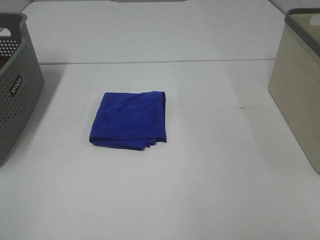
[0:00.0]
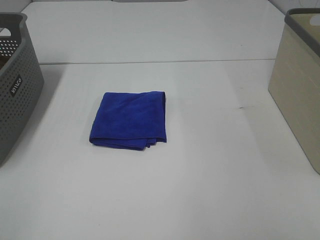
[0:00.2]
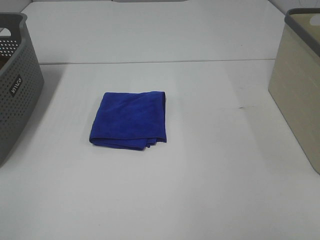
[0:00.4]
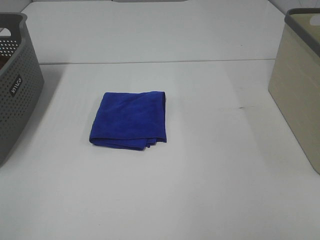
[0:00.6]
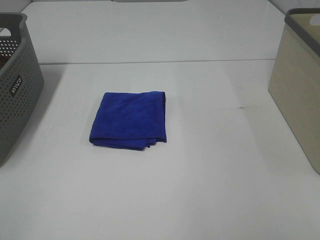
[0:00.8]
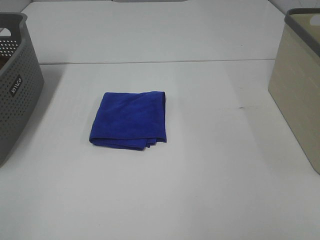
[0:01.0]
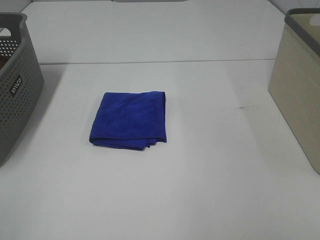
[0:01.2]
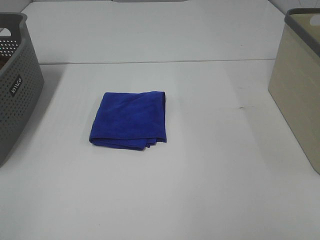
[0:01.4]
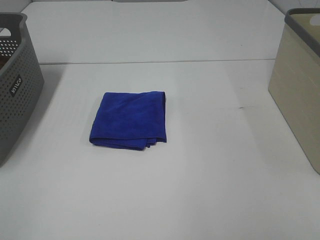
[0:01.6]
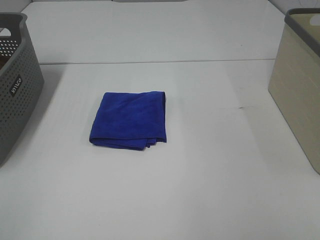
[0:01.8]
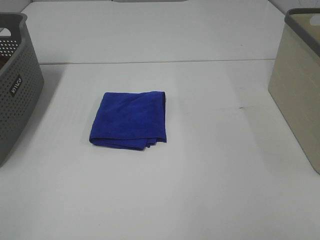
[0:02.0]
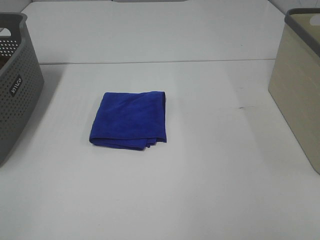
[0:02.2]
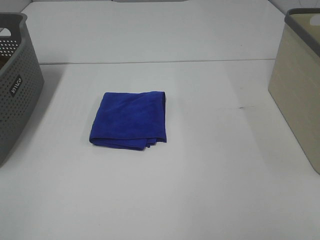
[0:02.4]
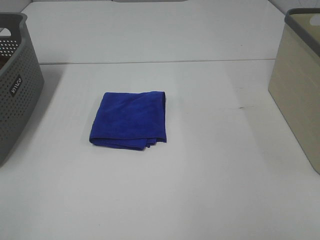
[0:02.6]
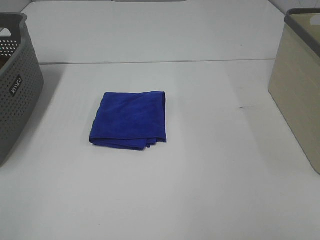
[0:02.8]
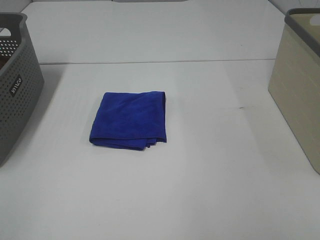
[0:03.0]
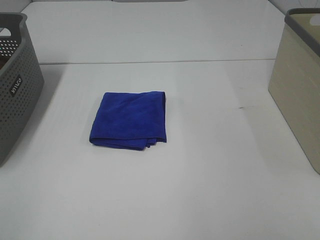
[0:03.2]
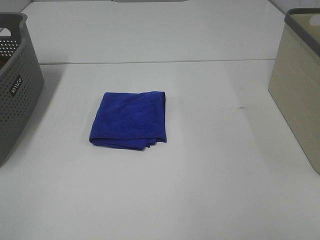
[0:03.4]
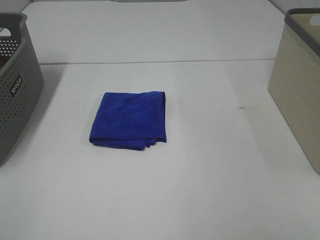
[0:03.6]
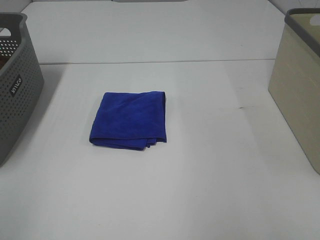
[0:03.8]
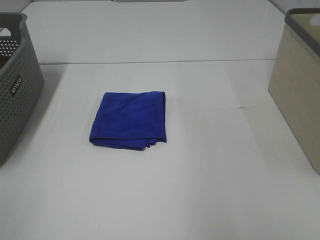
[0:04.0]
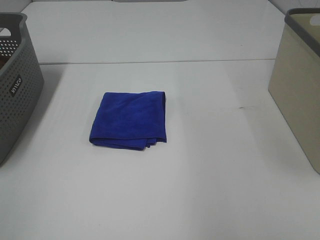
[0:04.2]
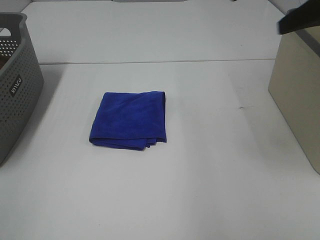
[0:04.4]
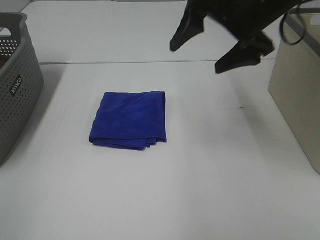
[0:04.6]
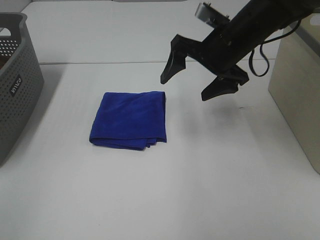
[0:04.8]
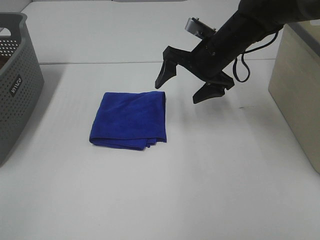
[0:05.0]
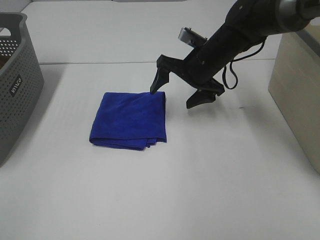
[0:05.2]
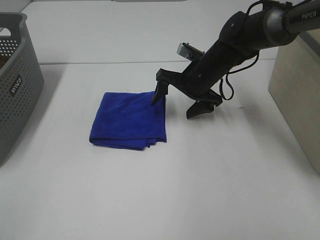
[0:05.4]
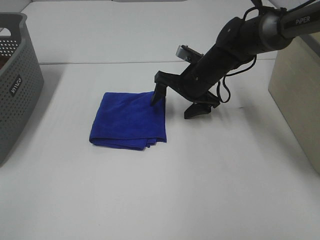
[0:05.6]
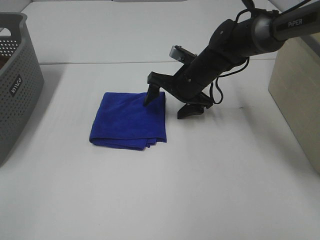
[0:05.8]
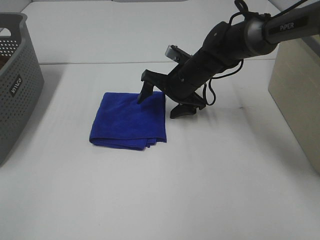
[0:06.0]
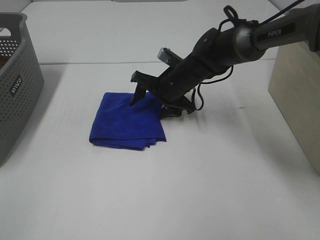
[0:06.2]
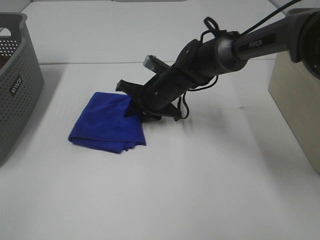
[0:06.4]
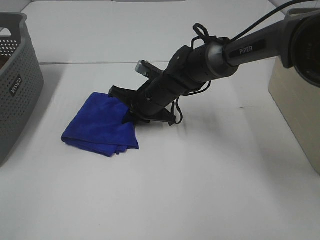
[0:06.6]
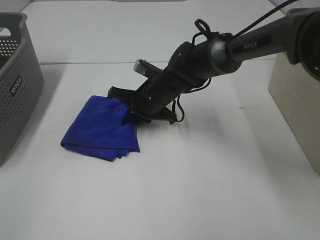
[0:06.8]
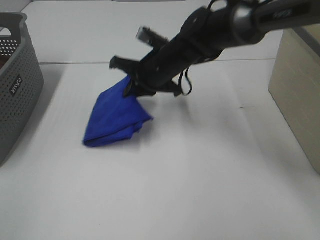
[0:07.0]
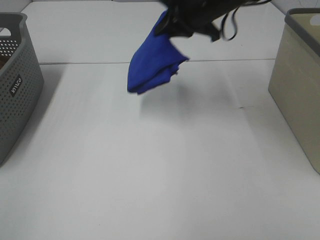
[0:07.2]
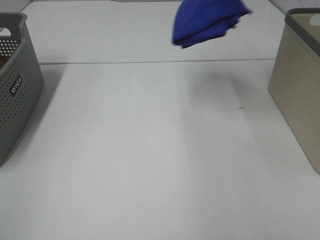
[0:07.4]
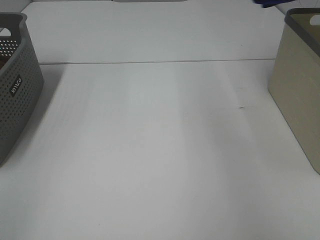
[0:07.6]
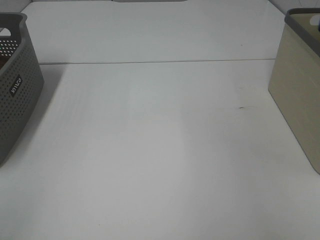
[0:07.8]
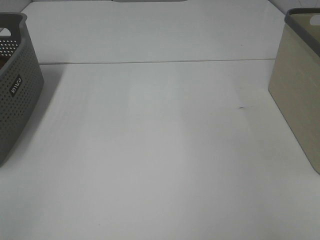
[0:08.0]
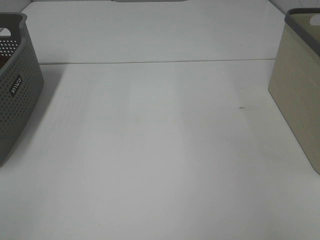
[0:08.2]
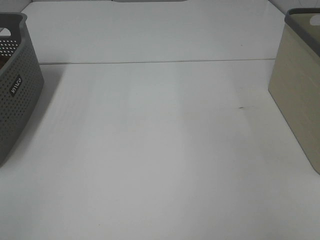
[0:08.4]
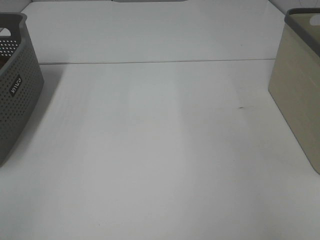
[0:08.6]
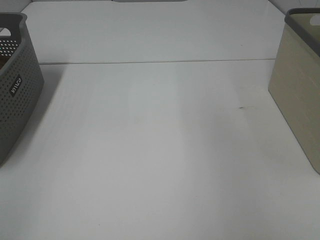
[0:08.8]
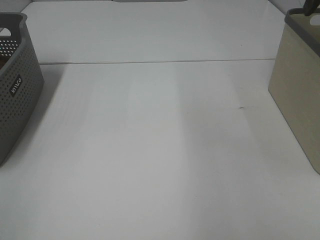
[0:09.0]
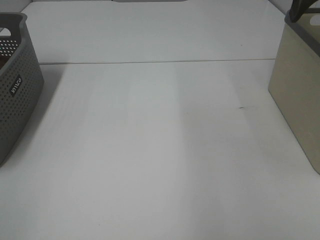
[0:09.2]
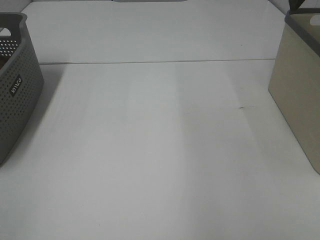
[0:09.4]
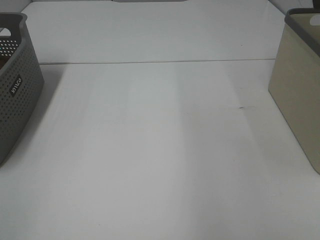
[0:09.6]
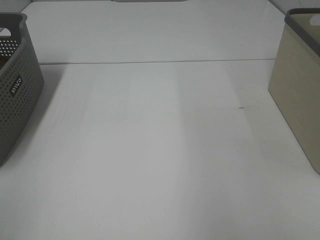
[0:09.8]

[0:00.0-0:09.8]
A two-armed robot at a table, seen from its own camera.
Step, 0:00.0 to 0:06.6: Right hand: grab the folded blue towel.
Step, 0:06.8 to 0:08.6: Right hand: place the blue towel in right basket.
0:00.0 to 0:02.8: Both grippers stay about where they are.
0:04.2 to 0:05.6: The right gripper goes roughly 40 cm downward, forward and to the left.
0:05.6 to 0:07.0: The right gripper travels to the left and upward by about 10 cm, and closes.
0:07.0 to 0:08.4: The right gripper heads to the right and upward, covering approximately 50 cm, and opens up.

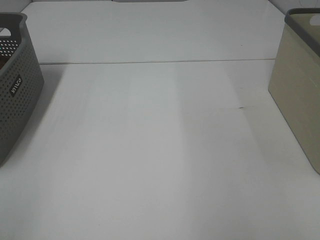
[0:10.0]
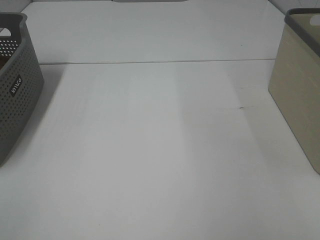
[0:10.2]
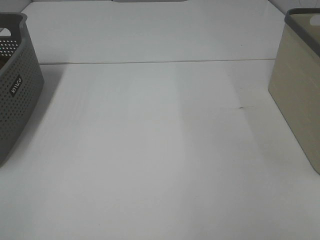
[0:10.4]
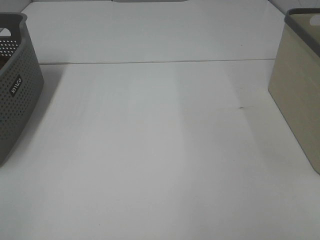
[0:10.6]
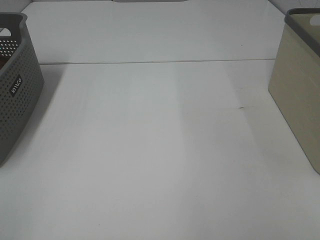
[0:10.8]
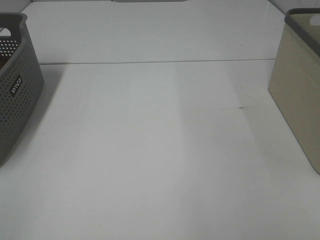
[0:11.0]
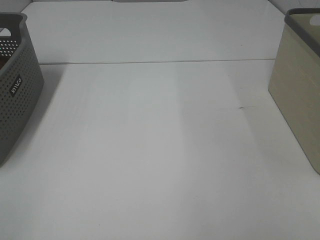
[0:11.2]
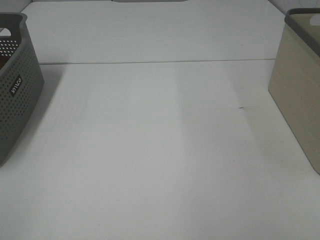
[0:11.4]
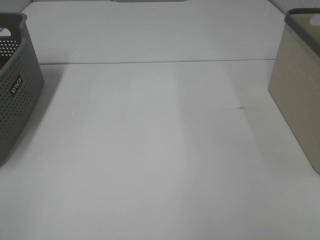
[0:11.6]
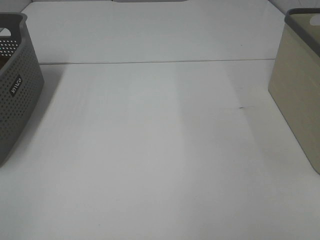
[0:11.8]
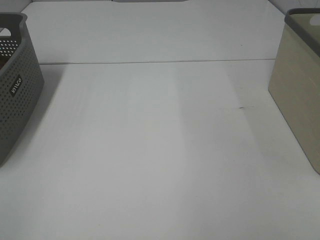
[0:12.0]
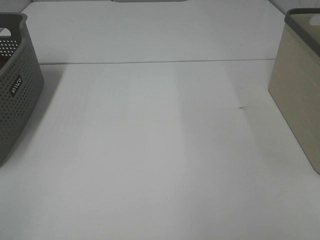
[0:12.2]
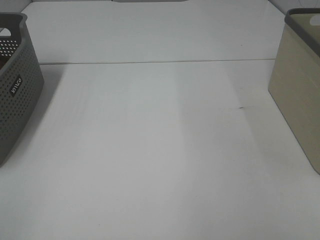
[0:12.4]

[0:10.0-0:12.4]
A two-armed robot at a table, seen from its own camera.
0:11.2 to 0:12.4: Both grippers stay put.

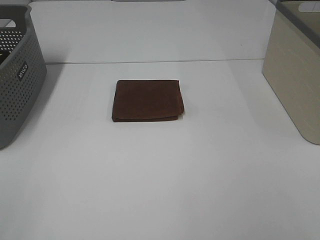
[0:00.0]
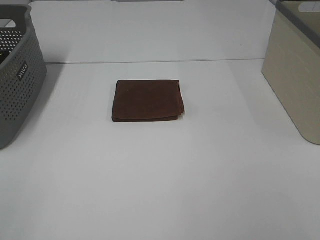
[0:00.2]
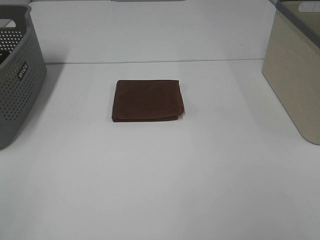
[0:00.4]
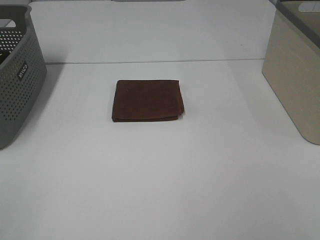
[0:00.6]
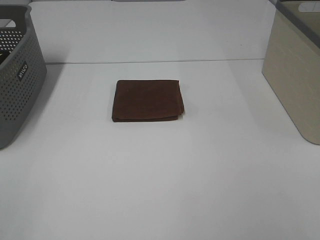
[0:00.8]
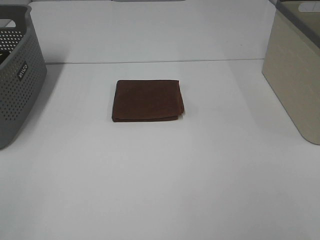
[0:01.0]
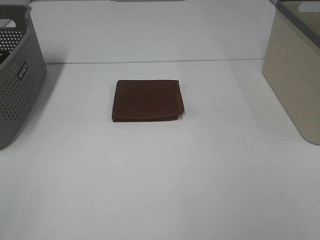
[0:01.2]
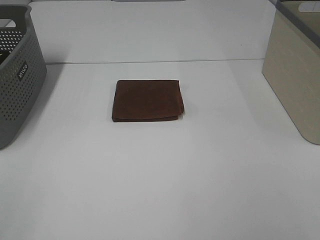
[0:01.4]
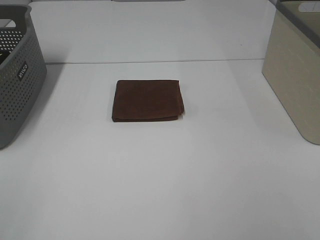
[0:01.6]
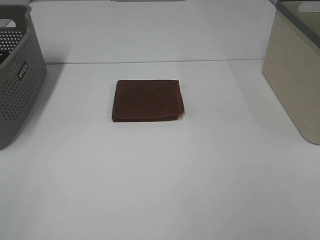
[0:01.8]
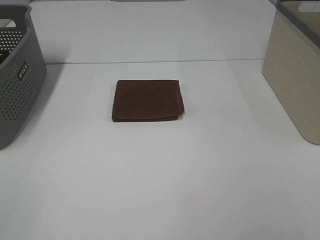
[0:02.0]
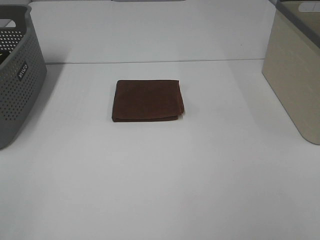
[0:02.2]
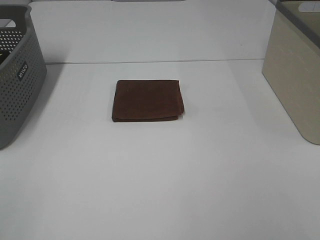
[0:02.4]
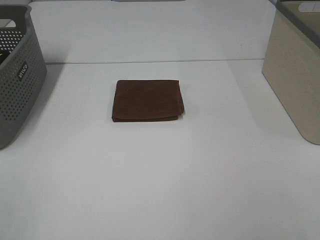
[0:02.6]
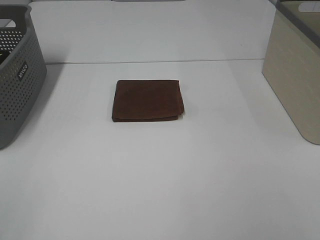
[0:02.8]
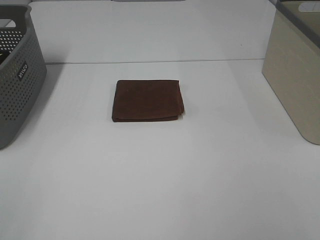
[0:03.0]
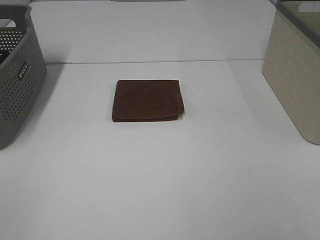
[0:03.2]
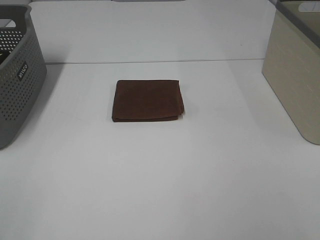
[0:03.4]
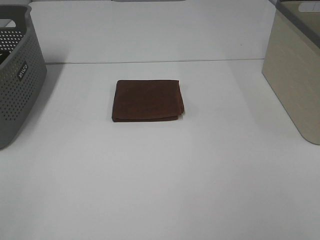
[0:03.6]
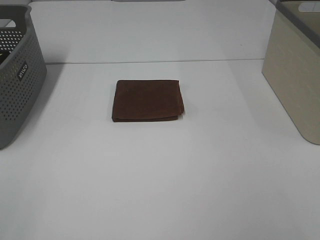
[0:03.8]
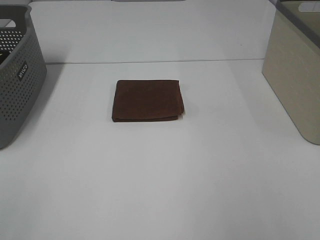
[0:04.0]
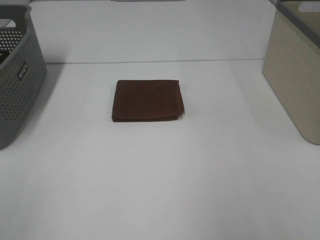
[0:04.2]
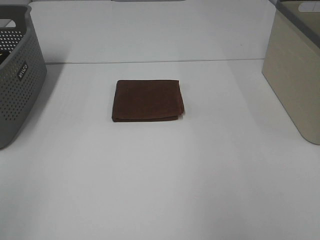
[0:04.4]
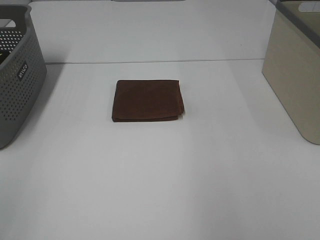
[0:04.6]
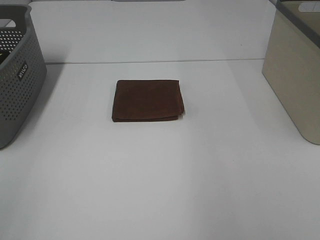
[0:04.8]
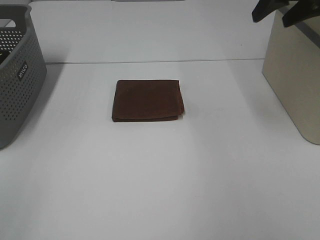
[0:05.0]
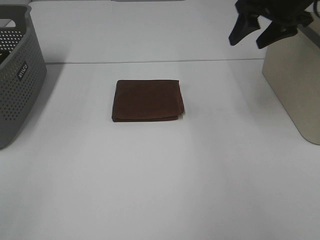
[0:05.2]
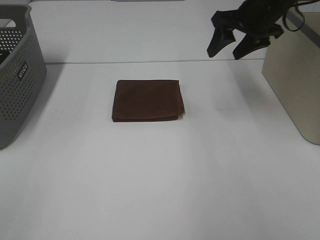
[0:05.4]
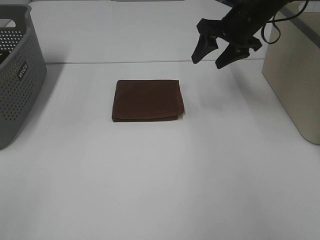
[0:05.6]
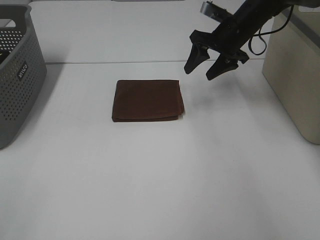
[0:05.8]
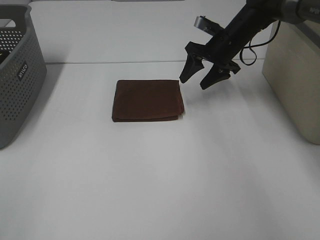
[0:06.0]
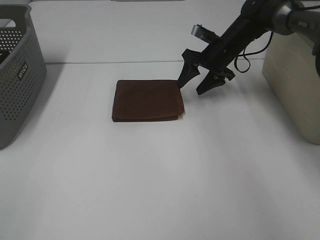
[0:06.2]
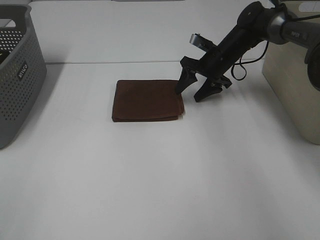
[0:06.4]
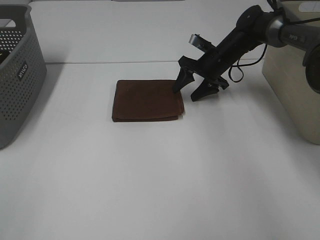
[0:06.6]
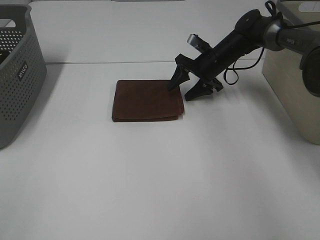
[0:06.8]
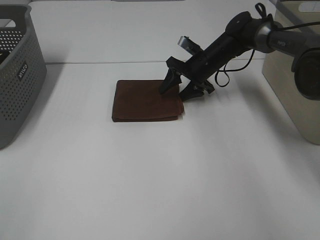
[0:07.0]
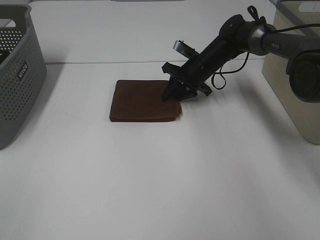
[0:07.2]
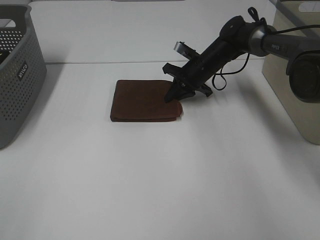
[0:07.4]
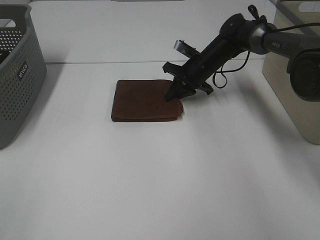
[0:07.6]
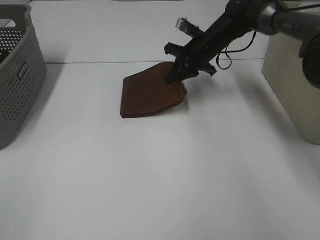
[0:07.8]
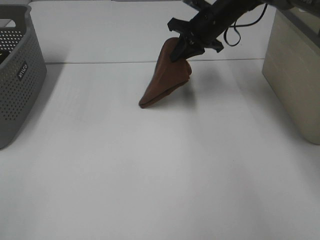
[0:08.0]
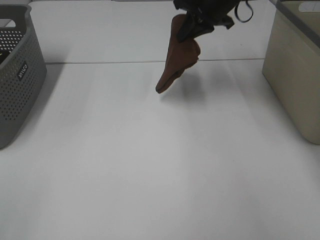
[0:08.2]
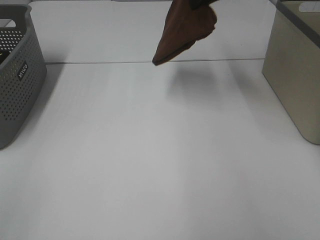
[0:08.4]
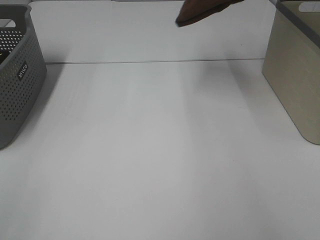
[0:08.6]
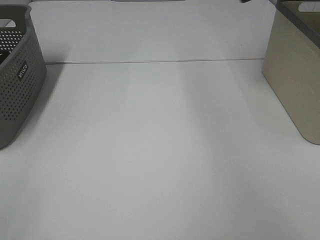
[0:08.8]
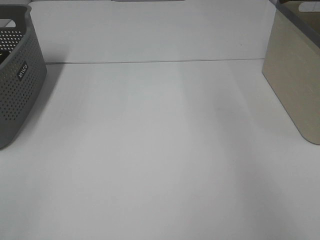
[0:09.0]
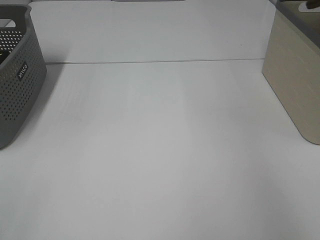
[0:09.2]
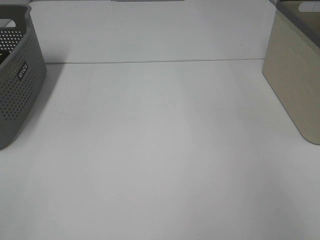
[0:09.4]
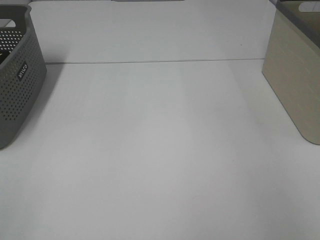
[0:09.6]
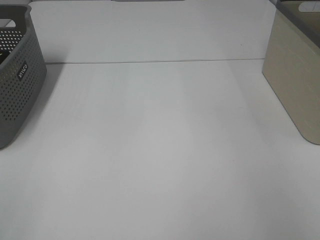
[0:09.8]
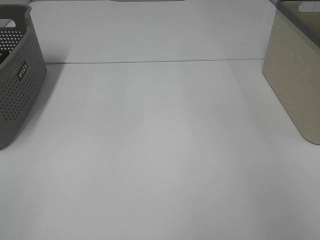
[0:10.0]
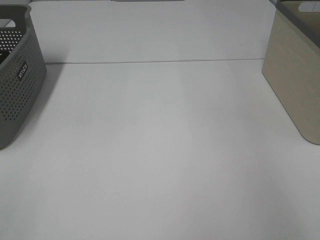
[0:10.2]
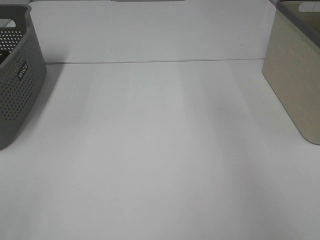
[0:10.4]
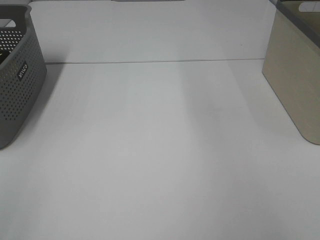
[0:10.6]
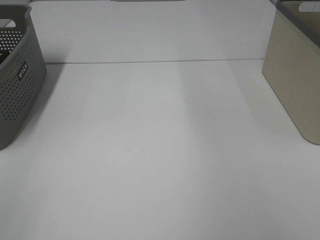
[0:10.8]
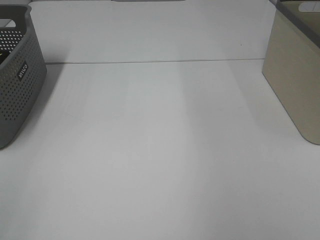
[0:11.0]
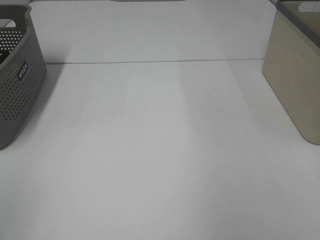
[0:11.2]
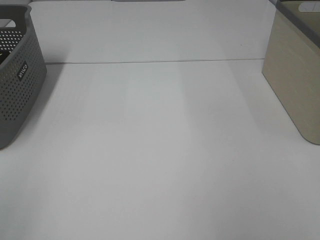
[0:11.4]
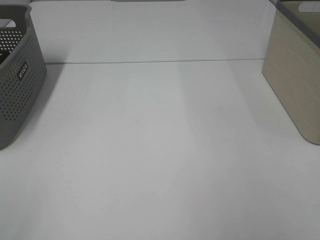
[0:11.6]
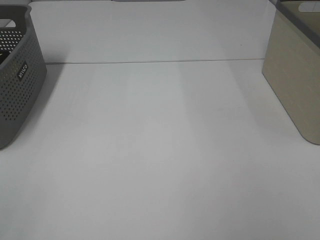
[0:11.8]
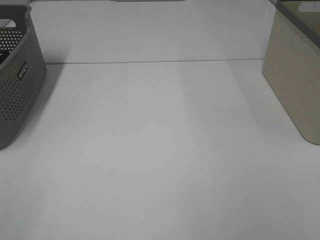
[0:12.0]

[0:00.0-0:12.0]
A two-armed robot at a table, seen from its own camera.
Step, 0:00.0 to 0:07.4: Right hand: grab the folded brown towel.
Step, 0:07.6 to 0:10.0: Right hand: place the brown towel in right basket.
0:00.0 to 0:03.0: Both grippers stay put.
0:04.4 to 0:06.0: The right gripper shifts approximately 40 cm forward, downward and to the left.
0:06.0 to 0:07.6: The right gripper travels downward by roughly 5 cm, and closes.
0:07.6 to 0:09.0: The right gripper heads upward and to the right, covering approximately 40 cm.
